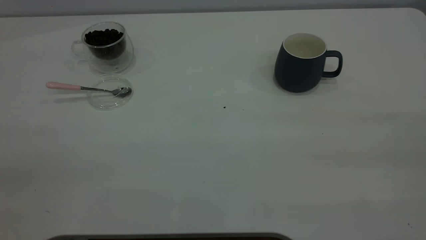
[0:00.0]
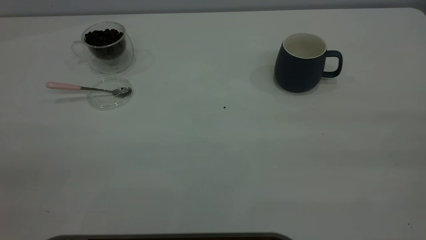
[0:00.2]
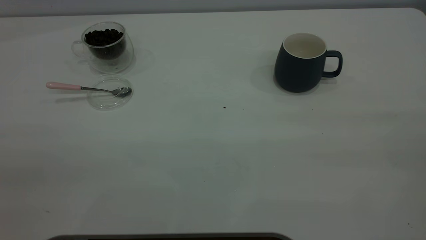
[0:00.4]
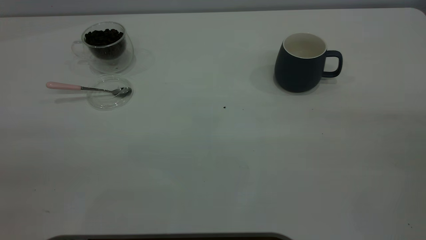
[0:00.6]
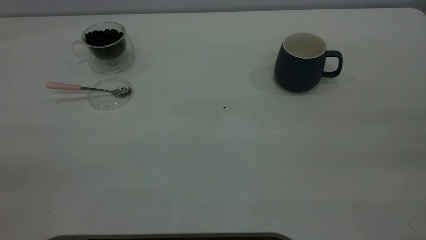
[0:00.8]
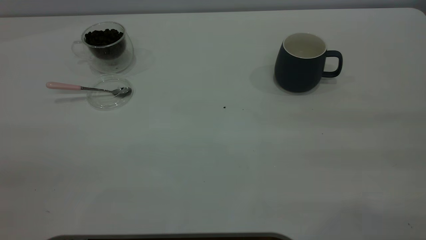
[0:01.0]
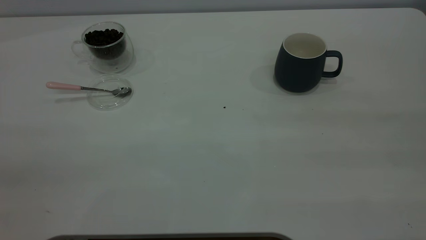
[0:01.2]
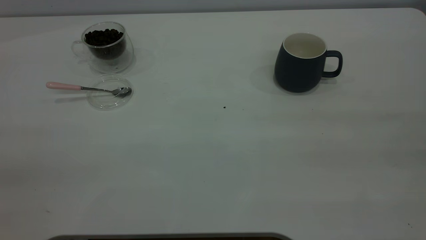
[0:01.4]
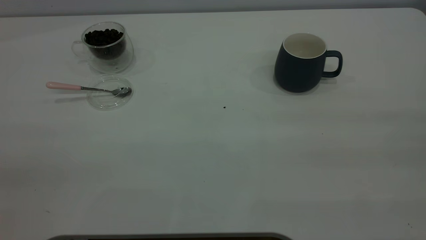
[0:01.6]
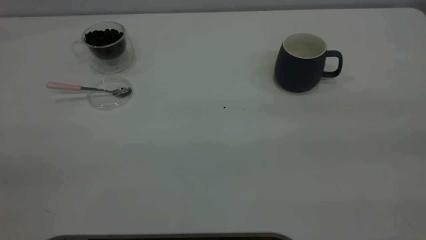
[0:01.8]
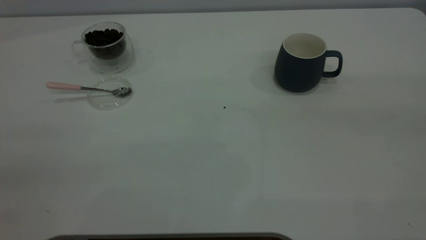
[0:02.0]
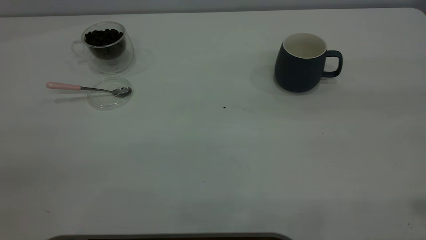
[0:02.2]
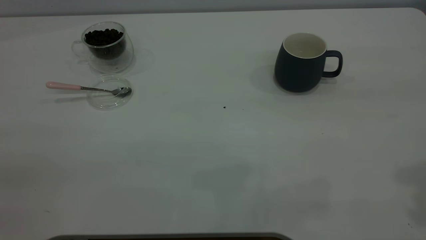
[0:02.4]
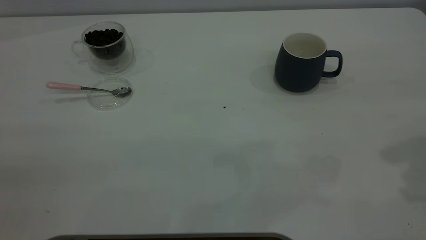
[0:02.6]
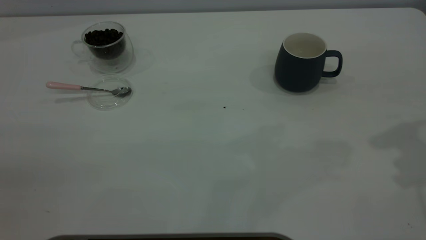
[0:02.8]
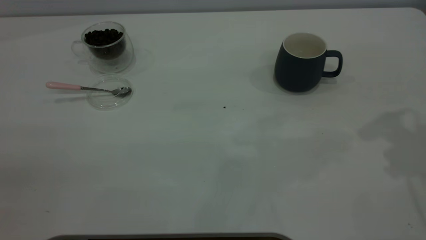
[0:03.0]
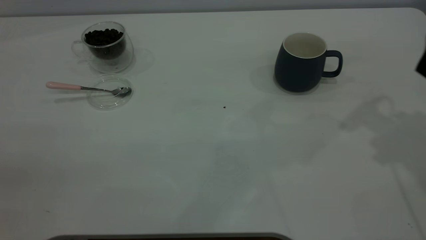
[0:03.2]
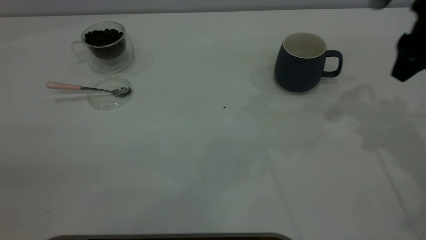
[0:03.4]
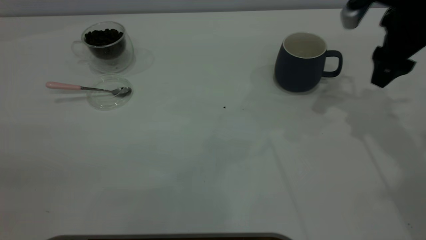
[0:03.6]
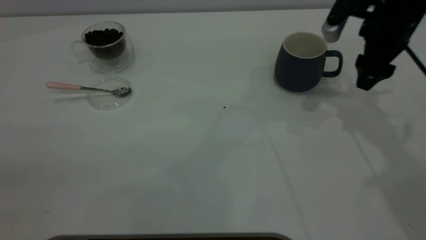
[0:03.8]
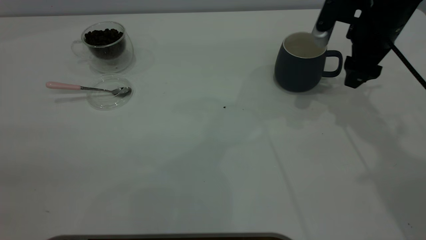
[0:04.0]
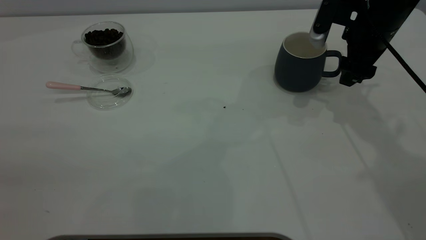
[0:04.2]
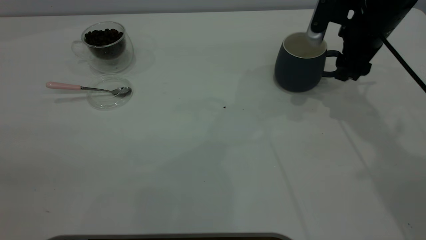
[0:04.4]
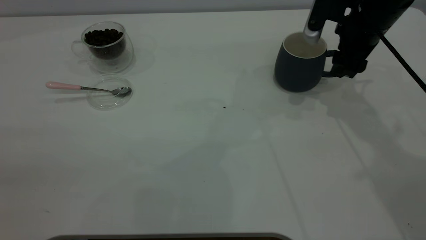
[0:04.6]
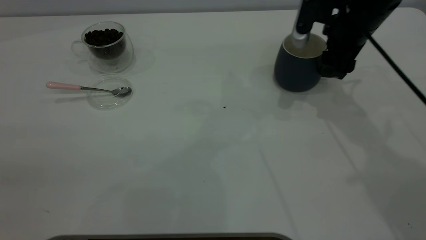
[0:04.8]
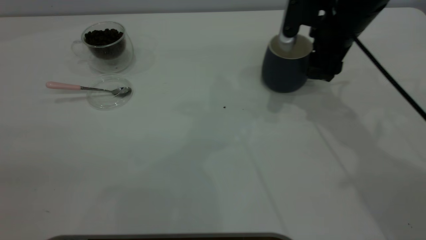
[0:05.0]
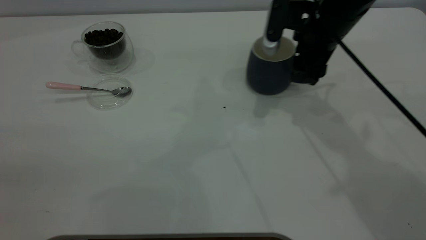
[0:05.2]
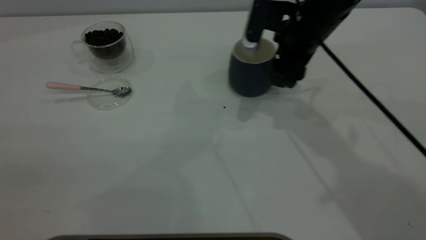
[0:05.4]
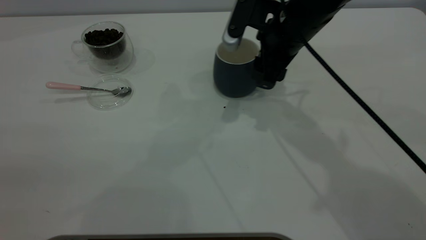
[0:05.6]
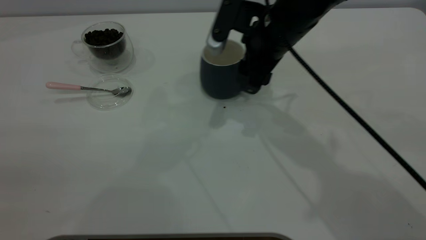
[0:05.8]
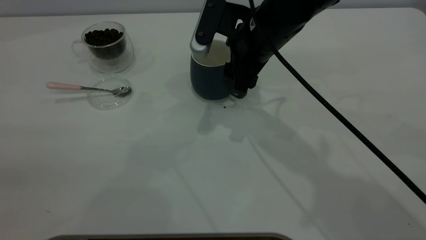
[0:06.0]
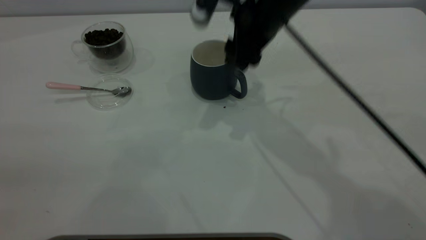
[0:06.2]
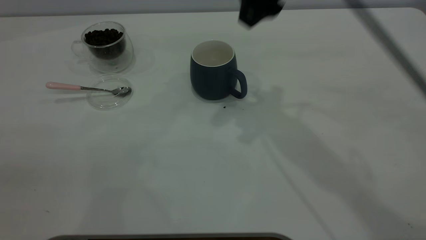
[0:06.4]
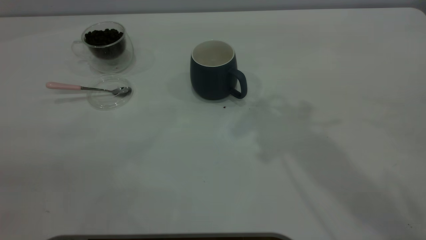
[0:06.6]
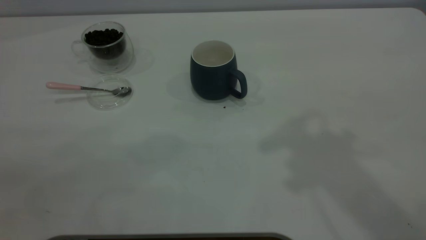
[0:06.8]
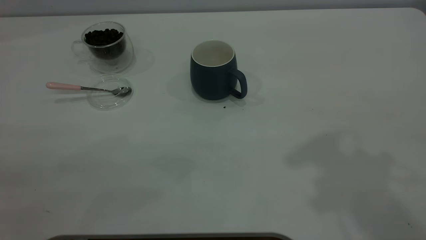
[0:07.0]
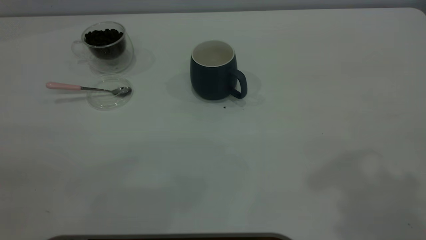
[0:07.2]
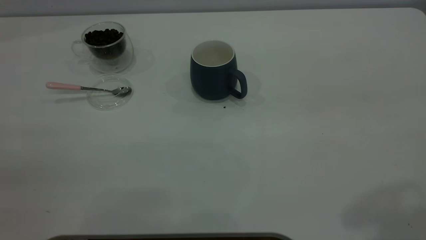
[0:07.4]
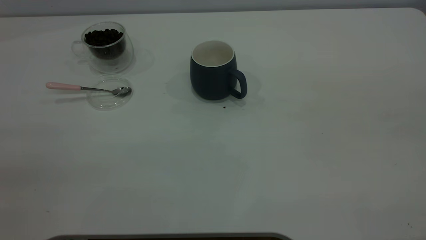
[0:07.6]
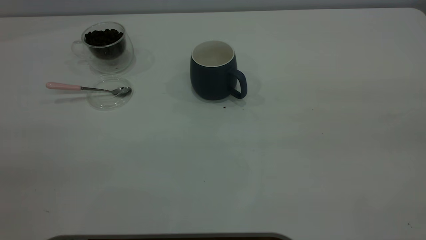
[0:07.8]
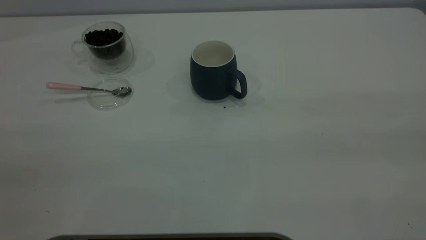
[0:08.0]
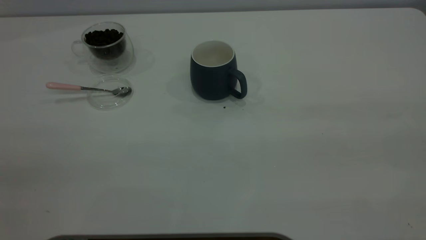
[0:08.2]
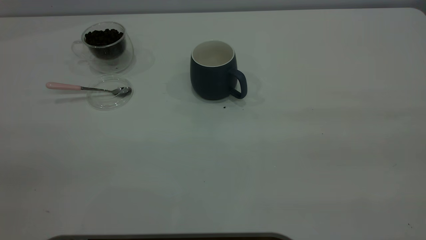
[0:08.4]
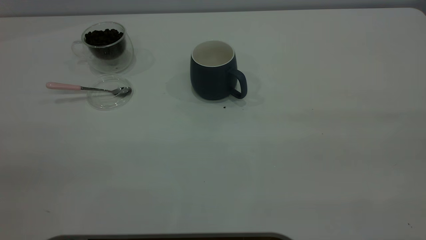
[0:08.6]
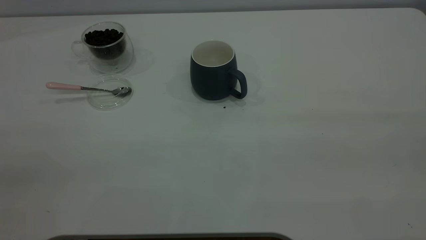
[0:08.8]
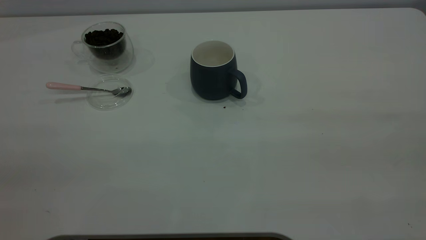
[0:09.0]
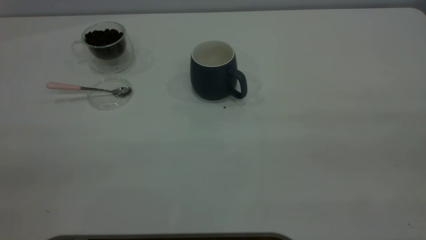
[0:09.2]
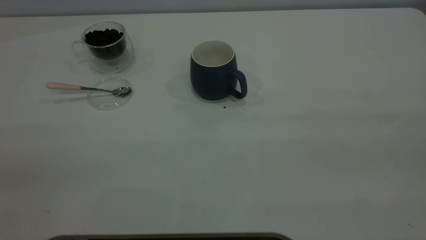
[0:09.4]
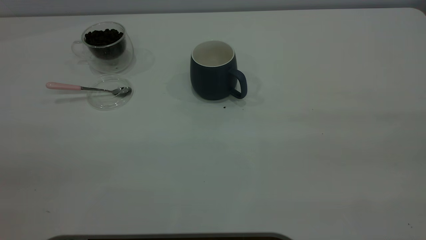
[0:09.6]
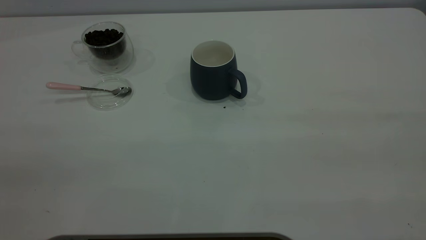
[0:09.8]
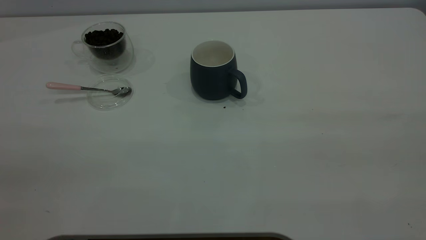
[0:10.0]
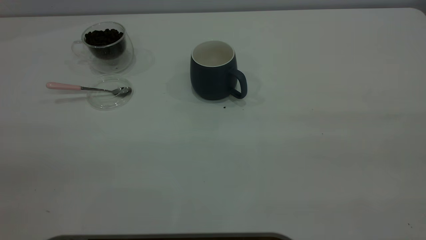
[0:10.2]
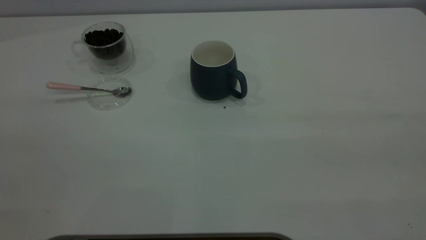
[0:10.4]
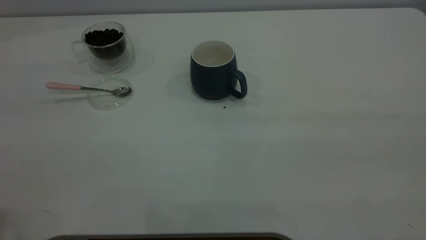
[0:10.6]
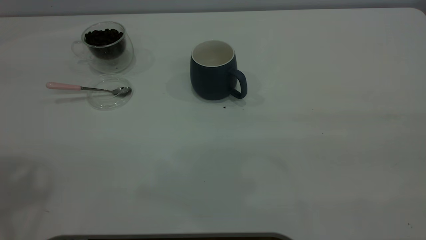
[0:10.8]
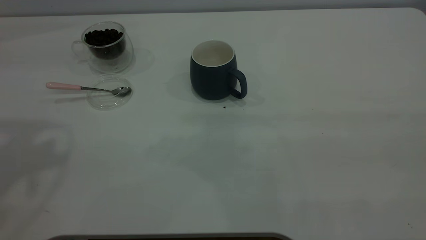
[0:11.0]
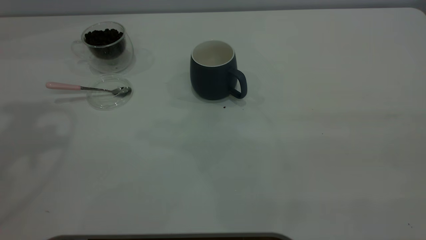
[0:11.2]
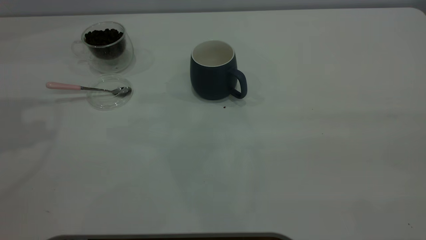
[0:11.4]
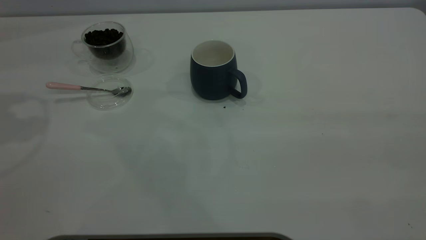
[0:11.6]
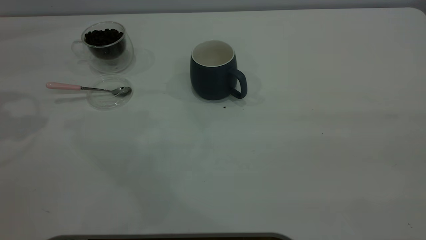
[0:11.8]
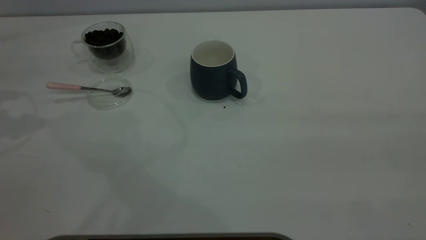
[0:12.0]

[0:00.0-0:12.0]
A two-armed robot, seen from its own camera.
Task of the whole recording: the right gripper place the grey cup in the center of the table, the left gripper take the pink spoon from the cup lid and scoop out the coffee beans from the coffee cup and put them into the grey cup, the left gripper put the spoon back into the cup lid.
Step, 0:00.0 to 0:06.2: Move the cup to the center of view.
0:00.0 to 0:01.6: Both grippers stay about where they are.
0:03.0 to 0:04.4: The right gripper moves forward, downward and to the left, roughly 20 cm.
0:04.4 to 0:06.0: The right gripper travels to the left by roughly 15 cm.
0:06.0 to 0:07.6: The right gripper heads backward, upward and to the right, covering some 40 cm.

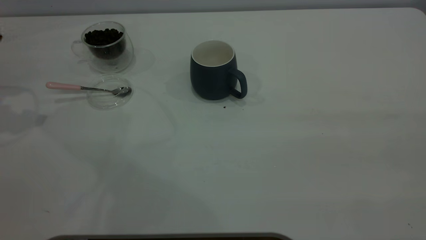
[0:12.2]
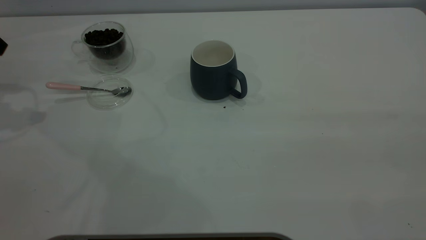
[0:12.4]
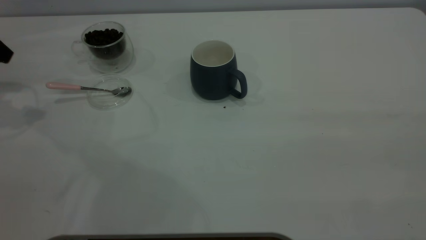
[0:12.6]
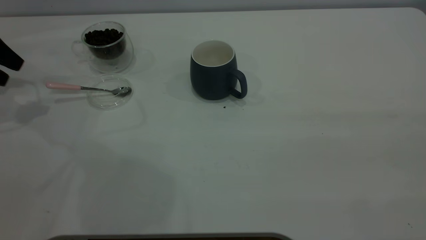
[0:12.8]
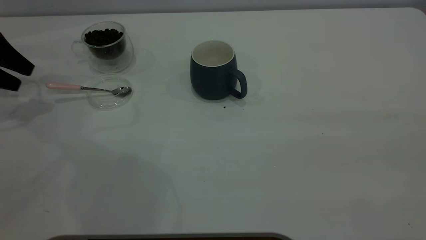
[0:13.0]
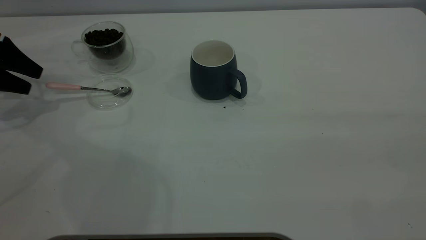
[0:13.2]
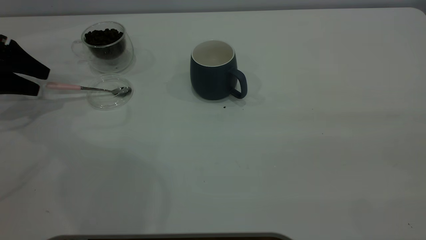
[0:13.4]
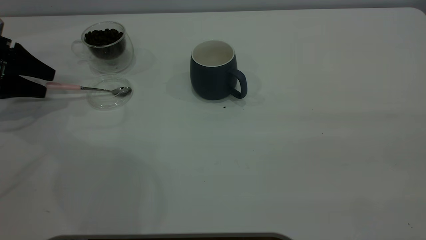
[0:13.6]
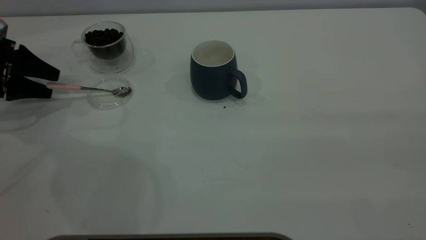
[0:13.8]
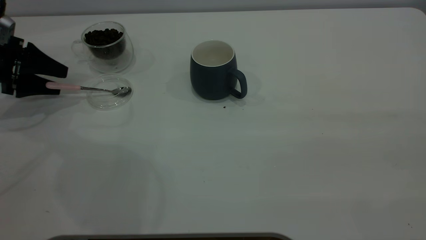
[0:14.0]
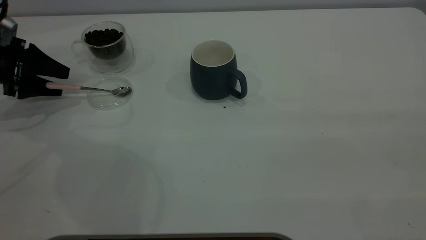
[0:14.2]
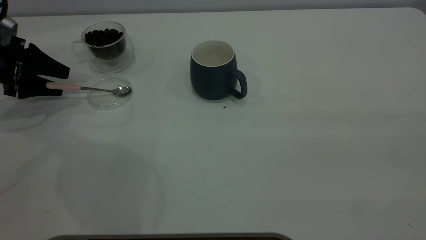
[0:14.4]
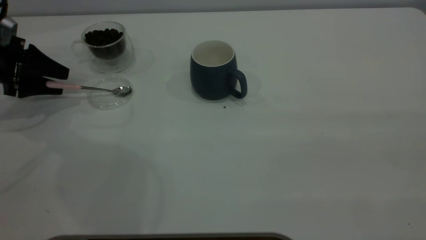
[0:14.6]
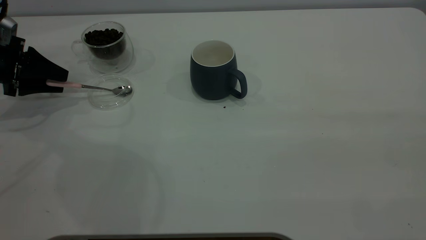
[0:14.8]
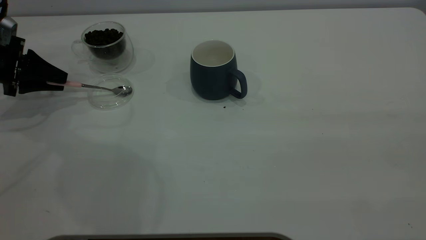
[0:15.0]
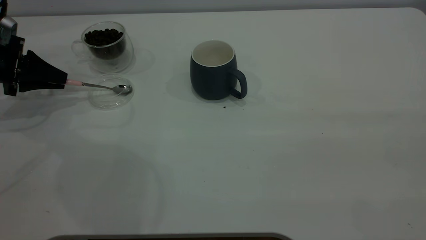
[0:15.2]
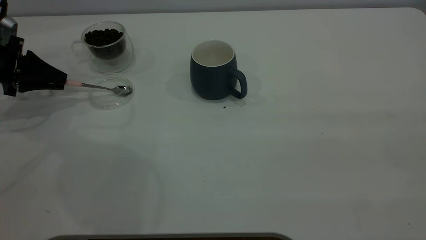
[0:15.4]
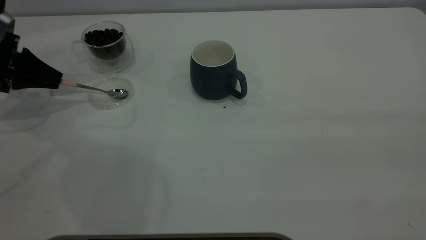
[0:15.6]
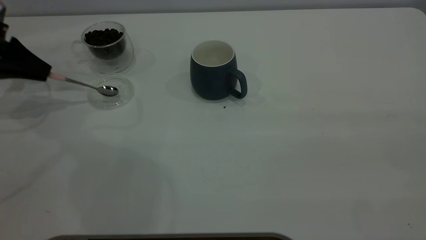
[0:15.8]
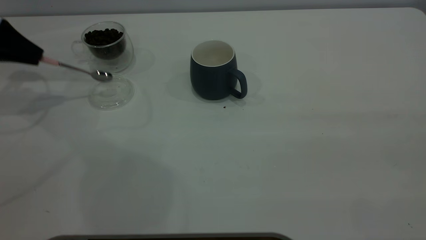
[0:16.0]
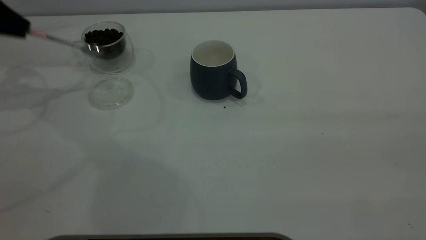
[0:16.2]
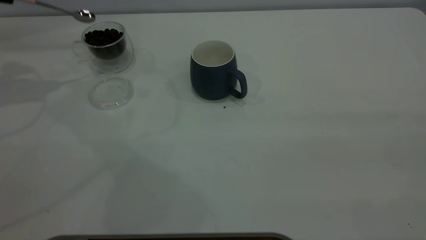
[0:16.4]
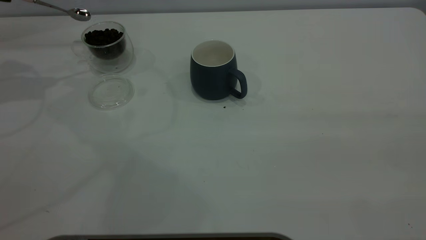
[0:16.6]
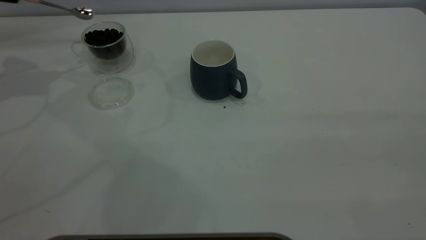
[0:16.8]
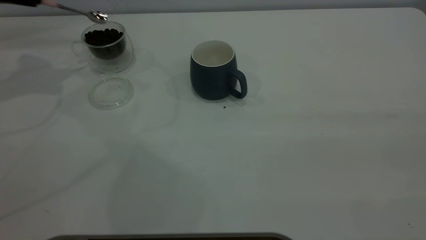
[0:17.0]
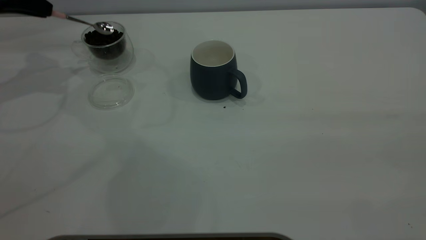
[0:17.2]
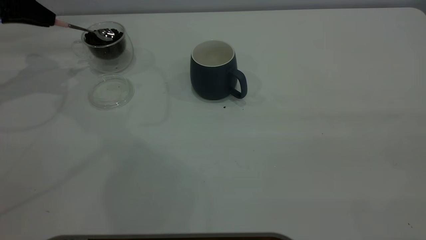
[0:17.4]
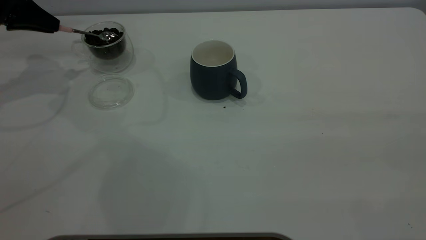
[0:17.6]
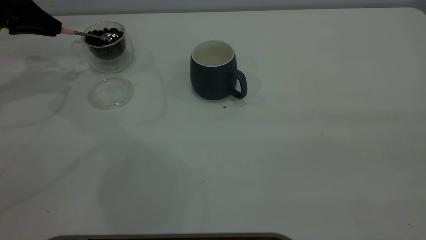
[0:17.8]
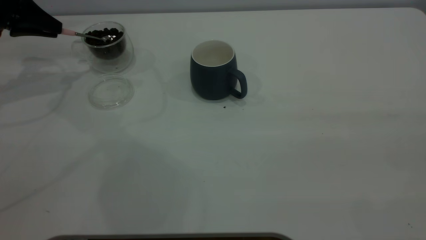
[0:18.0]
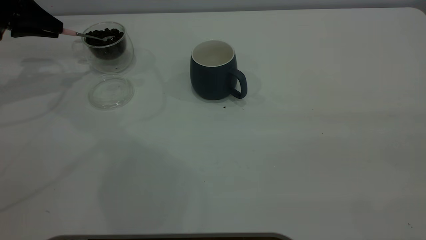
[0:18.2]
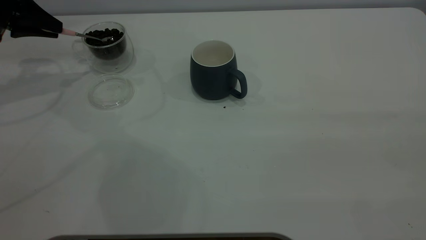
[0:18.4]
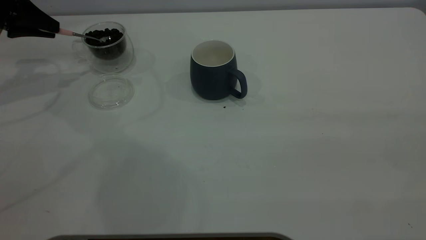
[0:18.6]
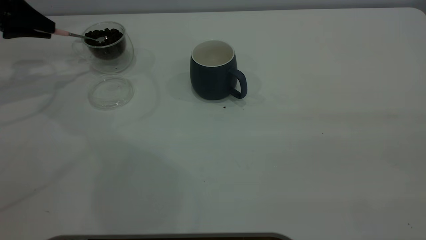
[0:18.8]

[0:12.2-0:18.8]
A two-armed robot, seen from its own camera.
Task of the whole recording: the right gripper place the grey cup in the center of the table, the left gripper take the pink spoon from the cup lid and scoop out the coffee beans from the coffee cup and put them into the grey cup, the left gripper put the spoon back into the cup lid.
Step, 0:12.2 to 0:16.0: Pick up the spoon.
0:12.2 to 0:13.8: The left gripper goes some 15 cm downward.
0:13.8 to 0:15.4: The left gripper closes up.
0:15.4 to 0:17.2: The left gripper moves upward, some 10 cm.
